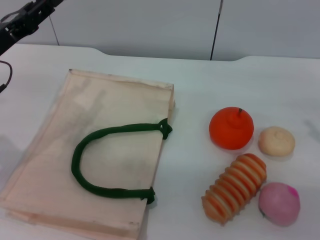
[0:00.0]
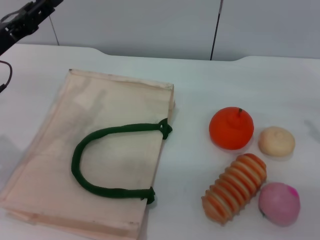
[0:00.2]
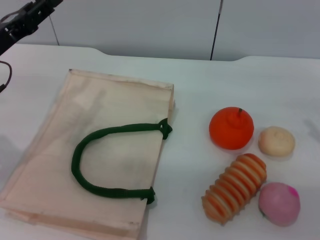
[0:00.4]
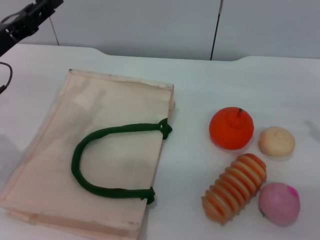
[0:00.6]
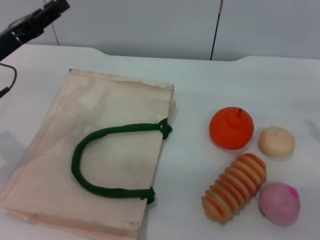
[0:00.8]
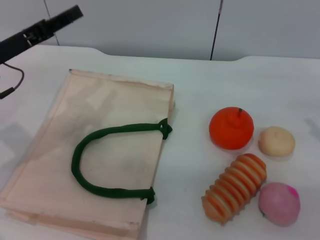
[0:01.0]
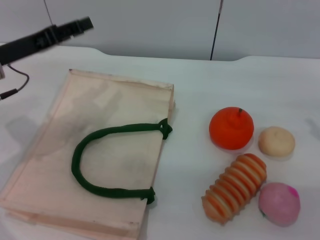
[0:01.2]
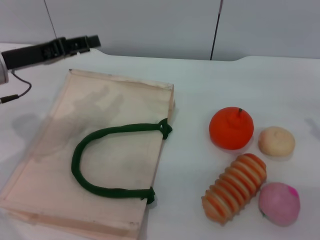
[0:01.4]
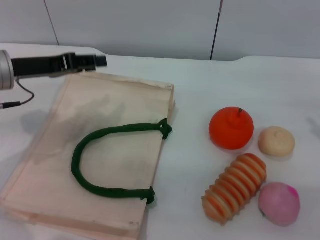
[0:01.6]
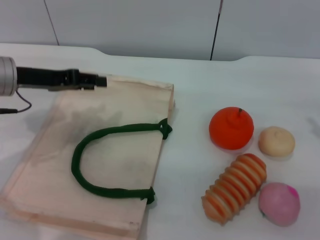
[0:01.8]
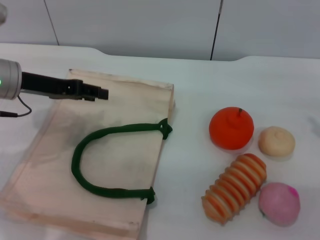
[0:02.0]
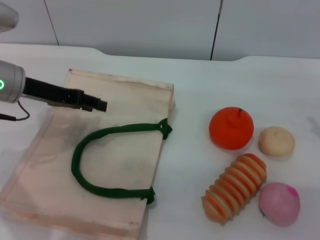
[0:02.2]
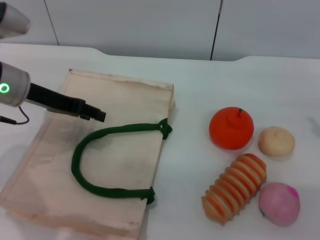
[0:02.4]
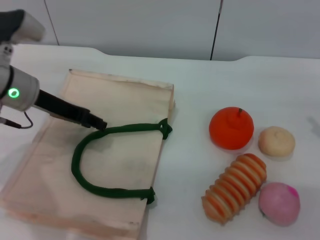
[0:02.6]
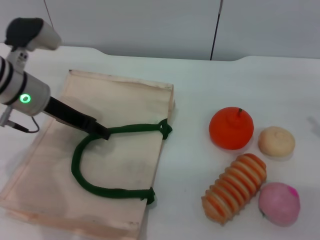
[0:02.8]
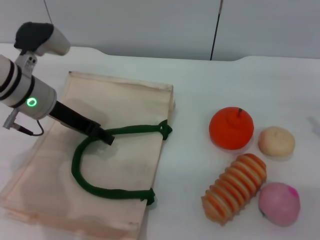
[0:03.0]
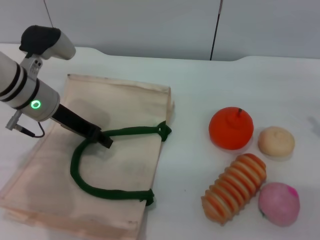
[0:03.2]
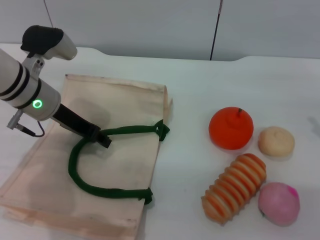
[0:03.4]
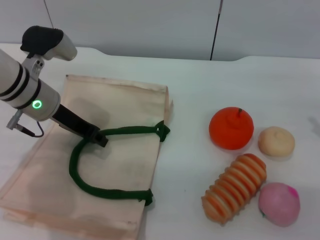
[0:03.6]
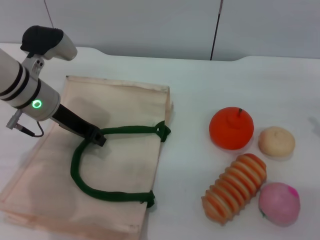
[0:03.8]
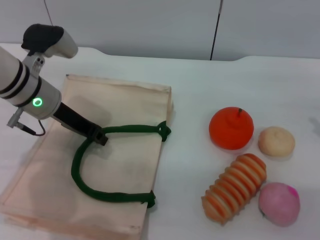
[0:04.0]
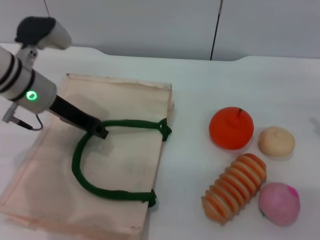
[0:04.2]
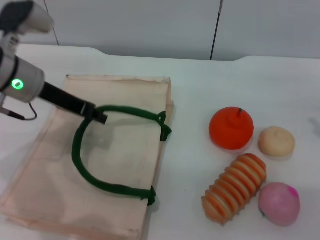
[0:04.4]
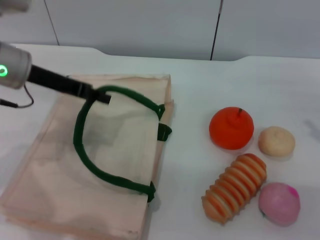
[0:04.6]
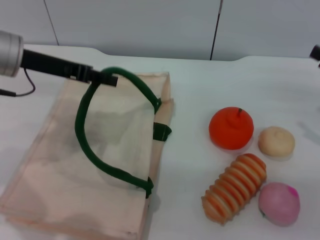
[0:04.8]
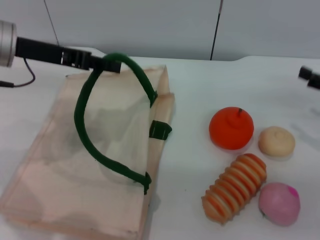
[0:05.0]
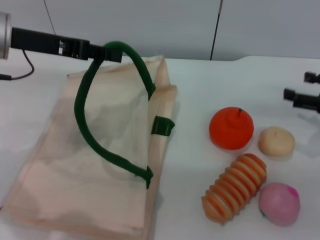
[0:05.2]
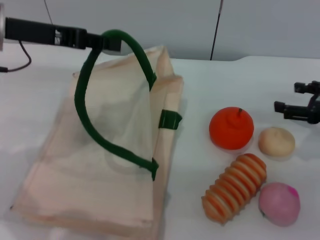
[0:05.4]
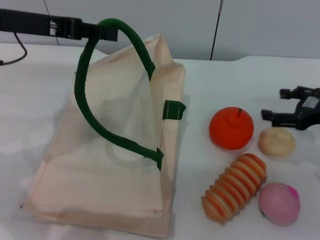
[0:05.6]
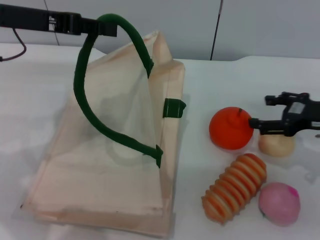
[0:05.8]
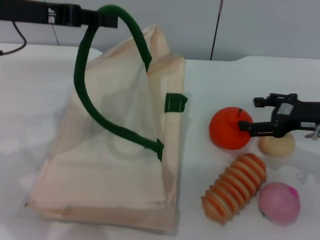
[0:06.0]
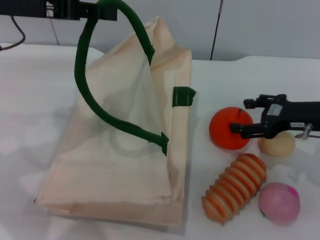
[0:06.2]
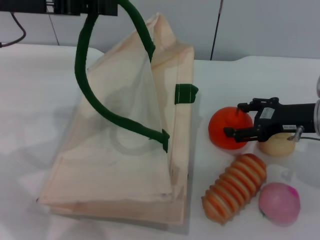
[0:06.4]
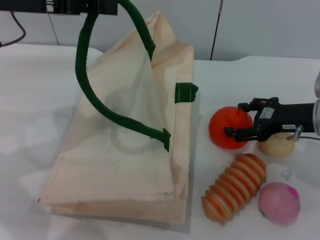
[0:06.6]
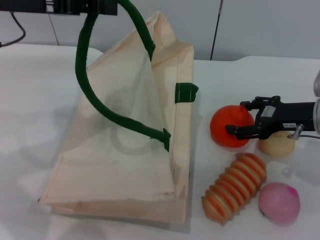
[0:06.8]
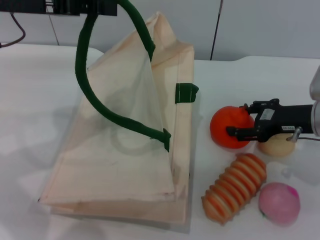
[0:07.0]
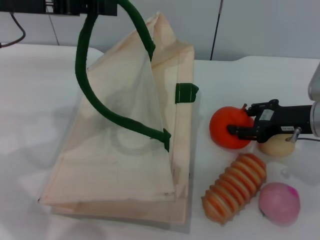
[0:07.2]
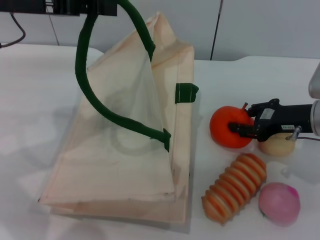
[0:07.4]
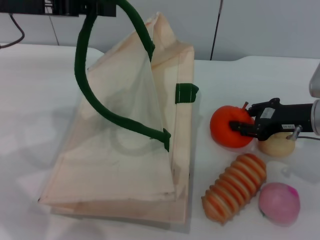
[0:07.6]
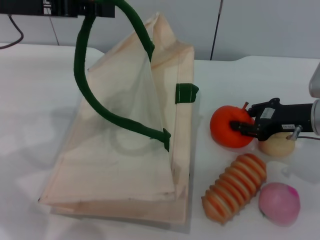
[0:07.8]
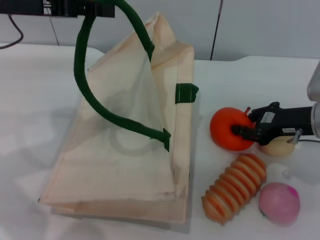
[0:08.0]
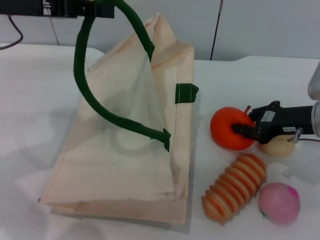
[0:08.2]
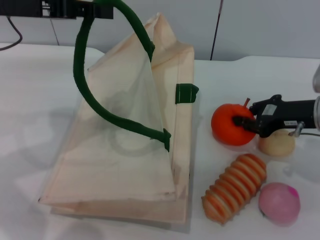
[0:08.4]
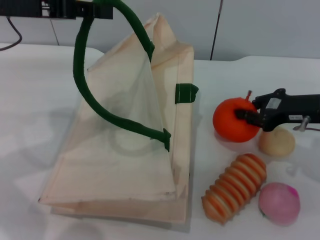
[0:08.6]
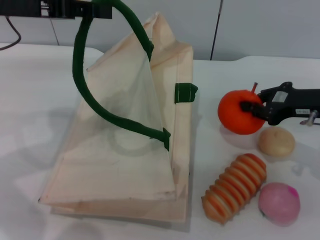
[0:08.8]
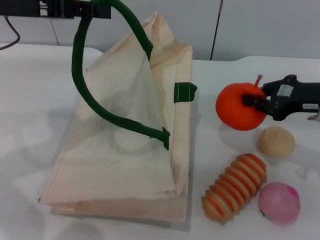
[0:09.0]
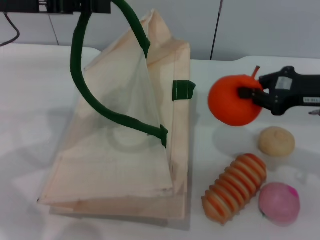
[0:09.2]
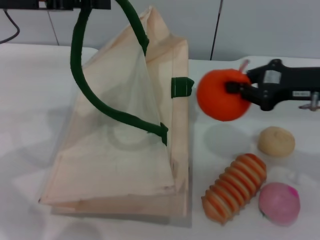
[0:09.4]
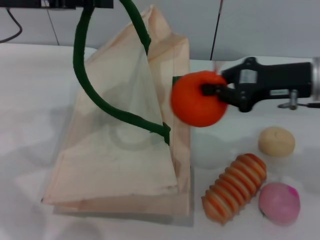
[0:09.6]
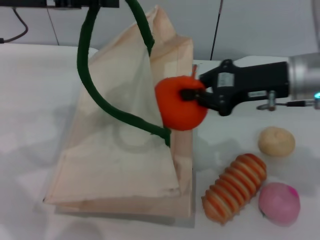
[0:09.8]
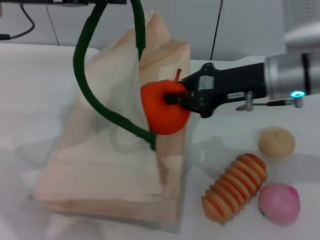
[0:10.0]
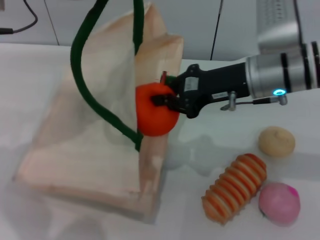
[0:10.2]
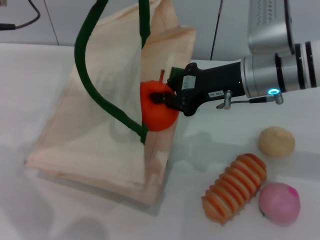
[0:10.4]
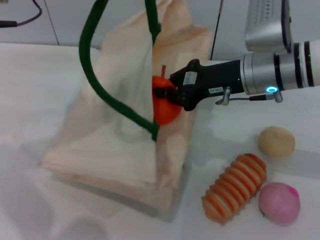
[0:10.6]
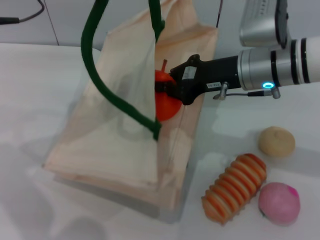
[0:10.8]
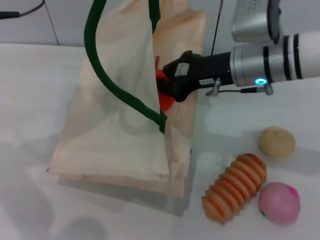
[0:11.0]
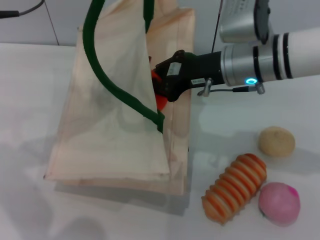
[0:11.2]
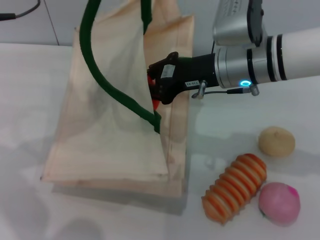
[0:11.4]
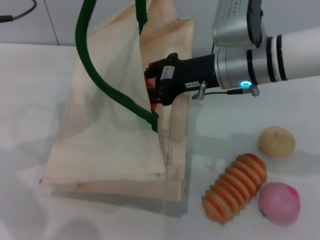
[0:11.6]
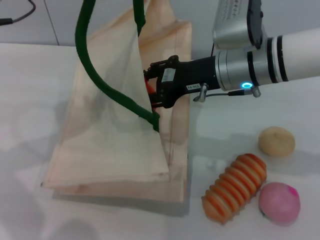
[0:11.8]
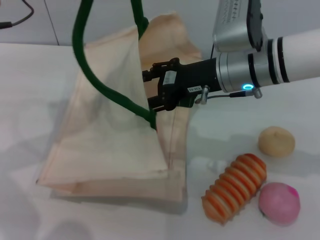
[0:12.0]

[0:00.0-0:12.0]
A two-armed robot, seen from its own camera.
Task of the whole recording: pick up the orange from the table and place it in the white handbag.
Step, 0:00.0 to 0:04.4: Lift the woven bag with the left gripper to open it.
Step, 0:04.6 to 0:09.0: Pick up the orange with the right gripper.
0:01.6 to 0:03.0: The left gripper moves to the right, roughly 5 cm.
0:03.0 to 0:04.4: The left gripper closes up.
0:04.4 to 0:06.0: The left gripper is displaced upward by approximately 10 cm. The right gripper heads to the left, covering some 5 cm.
0:06.0 to 0:07.6: The right gripper closes.
0:07.6 to 0:09.0: The grippers move only a little.
0:09.0 to 0:10.4: The right gripper travels to the left by about 15 cm.
0:10.4 to 0:12.0: The right gripper opens its fingers.

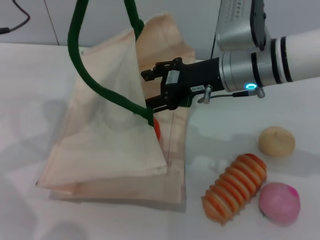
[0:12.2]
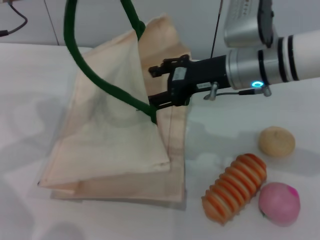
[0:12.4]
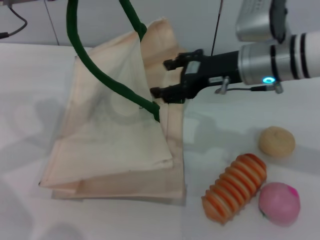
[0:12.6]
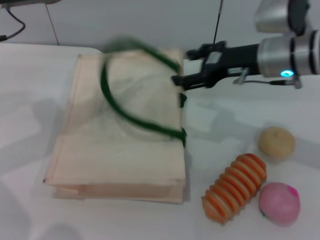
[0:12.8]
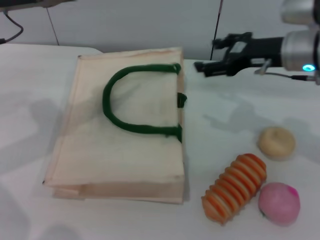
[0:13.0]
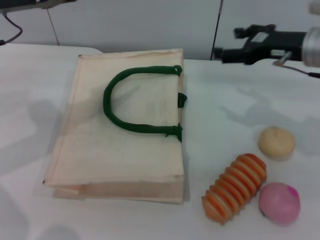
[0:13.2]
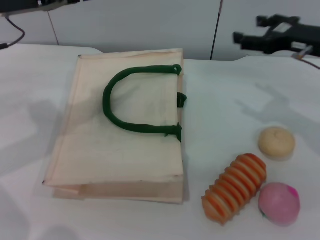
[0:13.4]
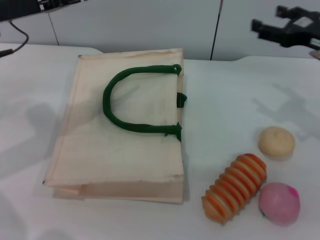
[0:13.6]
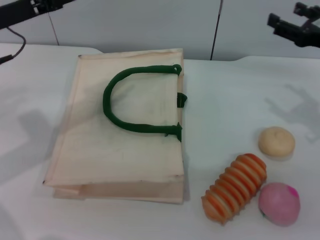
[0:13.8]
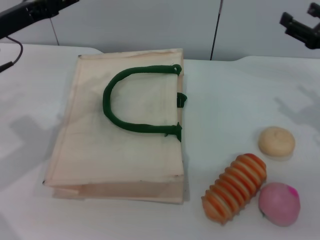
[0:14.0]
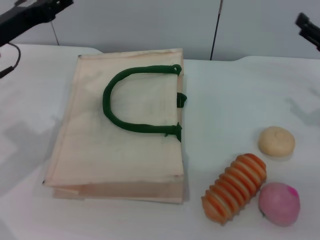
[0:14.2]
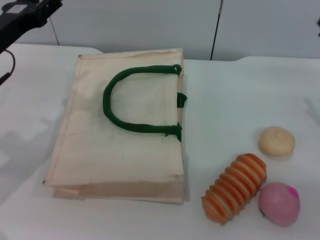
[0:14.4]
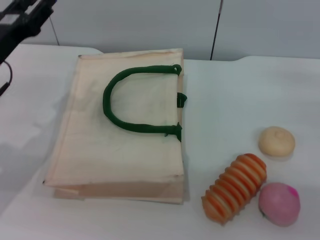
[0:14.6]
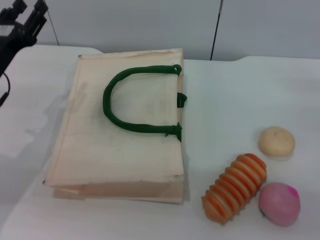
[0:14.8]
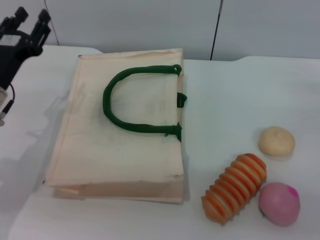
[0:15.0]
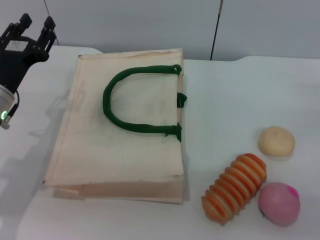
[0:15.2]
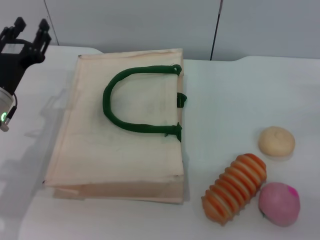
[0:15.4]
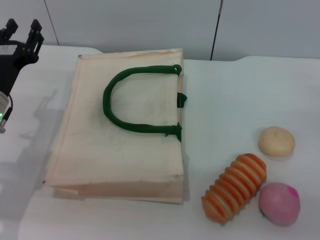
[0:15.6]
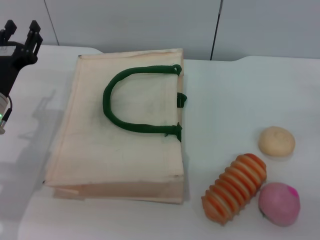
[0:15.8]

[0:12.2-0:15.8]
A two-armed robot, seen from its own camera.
Task of the whole recording: pick up the orange from the table and place it in the white handbag.
Step, 0:13.0 to 0:14.2: Lower the woven bag with the left gripper to close it.
0:12.2 to 0:14.0: The left gripper is displaced downward by approximately 5 cm, and opens, while the right gripper travels to the right by approximately 20 cm.
0:14.0 to 0:15.8: The right gripper is displaced downward, backward and to the right by some 10 cm; the left gripper goes some 10 cm downward.

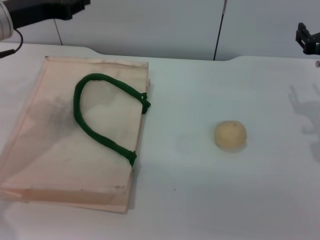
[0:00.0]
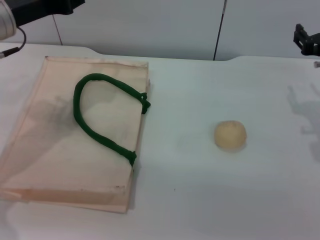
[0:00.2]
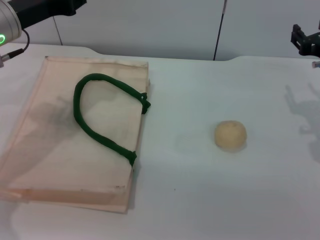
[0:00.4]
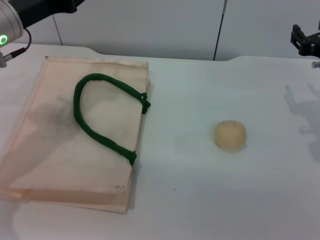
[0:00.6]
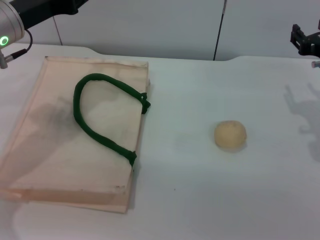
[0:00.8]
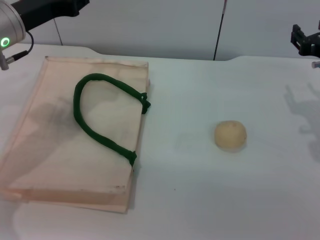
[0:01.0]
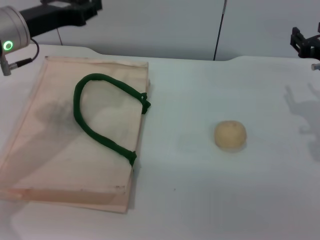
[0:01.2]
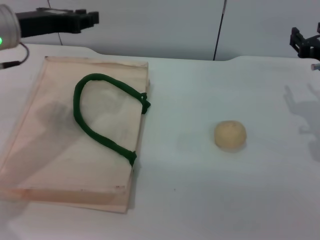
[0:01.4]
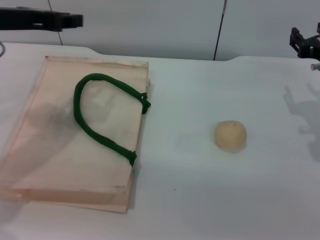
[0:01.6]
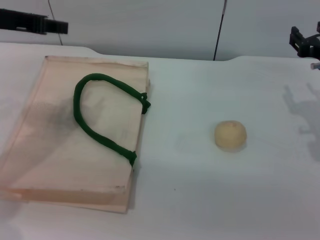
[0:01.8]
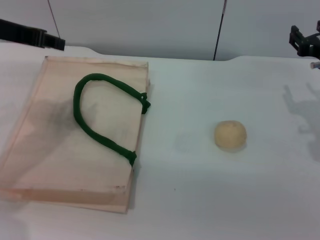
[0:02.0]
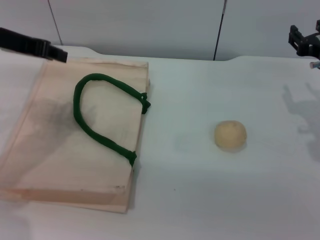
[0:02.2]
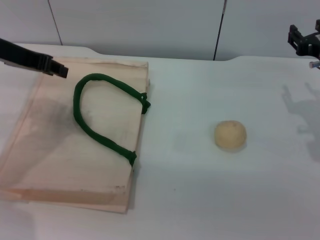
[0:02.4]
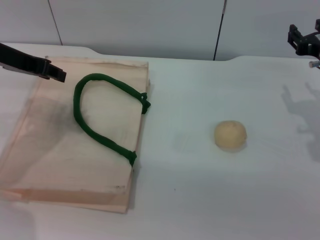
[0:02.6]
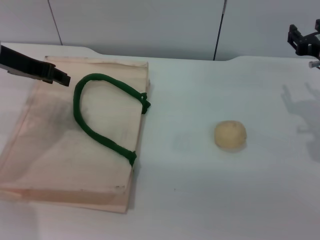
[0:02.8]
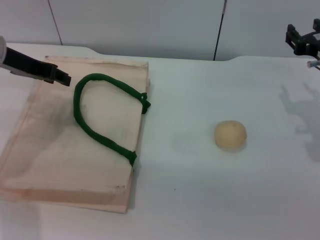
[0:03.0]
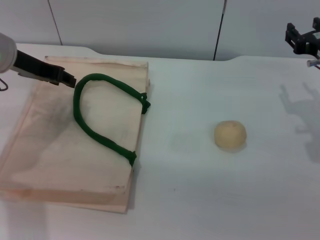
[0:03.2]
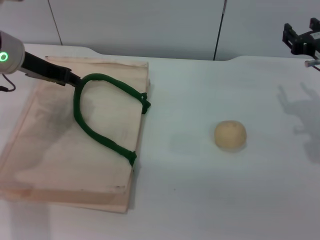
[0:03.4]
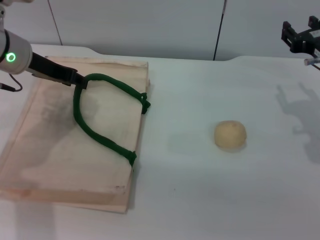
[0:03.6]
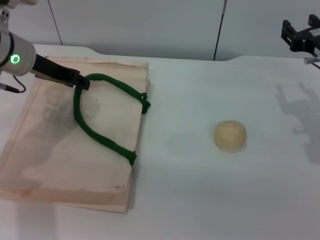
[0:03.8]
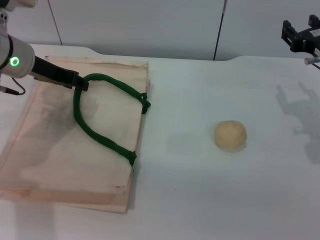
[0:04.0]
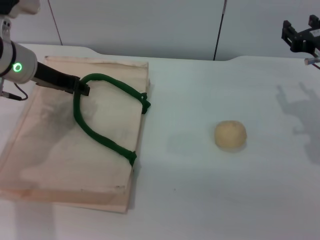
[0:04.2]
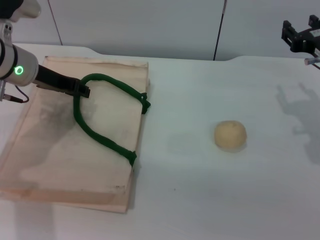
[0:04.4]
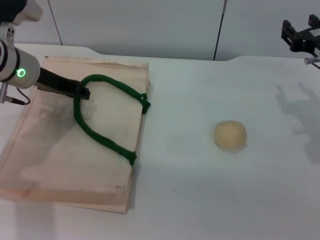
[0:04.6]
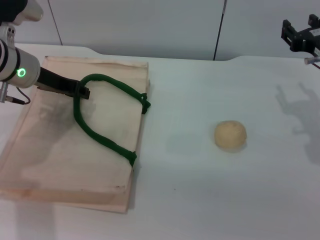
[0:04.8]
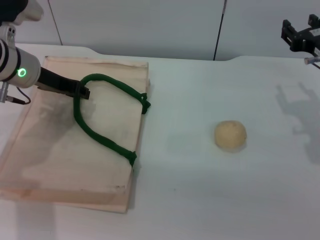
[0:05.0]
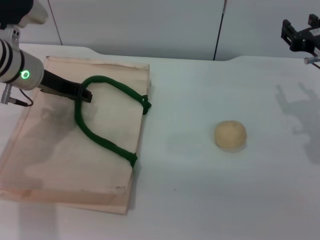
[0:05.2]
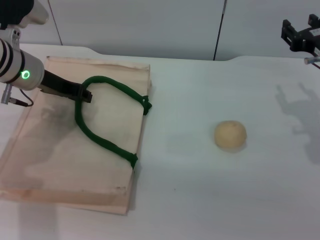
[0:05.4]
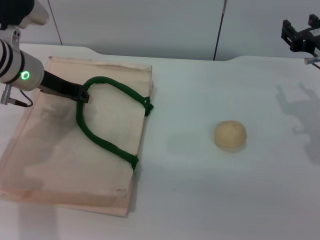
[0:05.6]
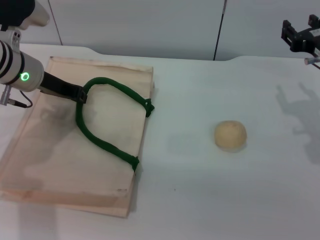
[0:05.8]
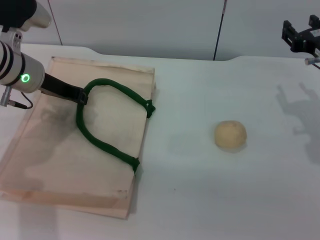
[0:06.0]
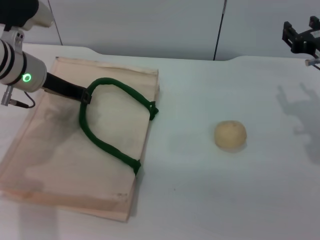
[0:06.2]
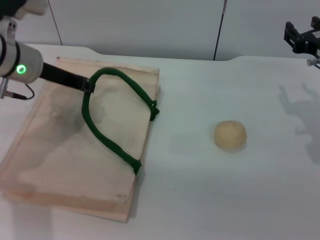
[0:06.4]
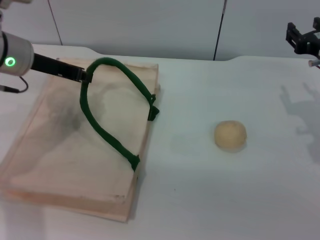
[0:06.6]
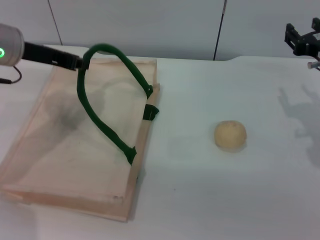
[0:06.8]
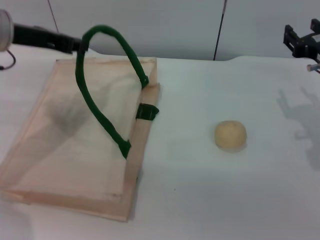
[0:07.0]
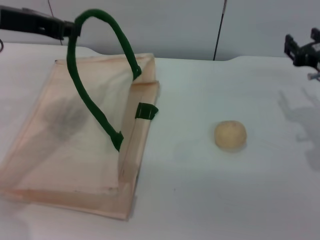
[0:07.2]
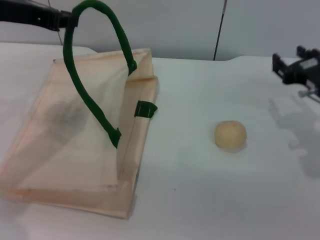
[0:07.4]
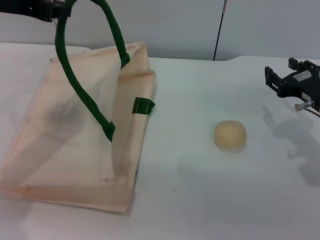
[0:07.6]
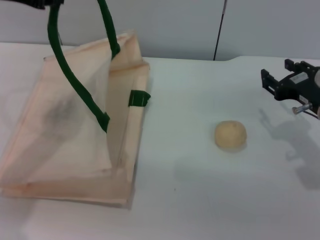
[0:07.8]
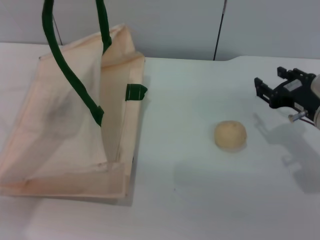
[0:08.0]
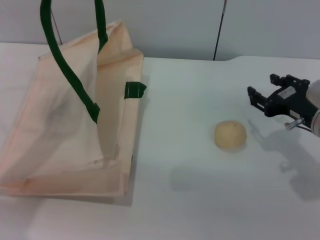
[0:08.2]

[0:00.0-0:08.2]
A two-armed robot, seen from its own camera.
Task of the whole recording: pick up the egg yolk pastry from the table and place it in the white handbag.
Step, 0:00.0 to 0:07.0: Lift the woven bag with the left gripper to open it.
0:00.0 to 0:01.6: The grippers move only a little.
0:01.6 to 0:03.2: The left gripper shifts approximately 5 cm downward.
0:03.2 to 0:05.0: There are only small adjustments of the grippers.
0:05.0 to 0:06.6: The left gripper closes its fingers.
0:06.6 to 0:08.2: The left gripper travels upward by some 15 cm; the right gripper goes some 5 cm backward.
